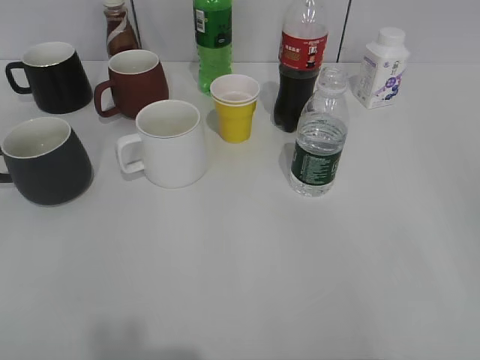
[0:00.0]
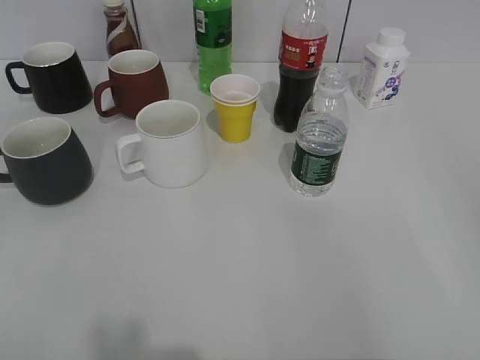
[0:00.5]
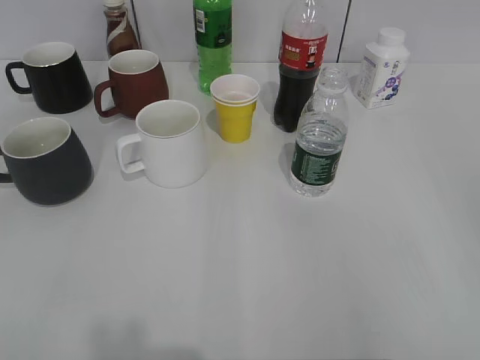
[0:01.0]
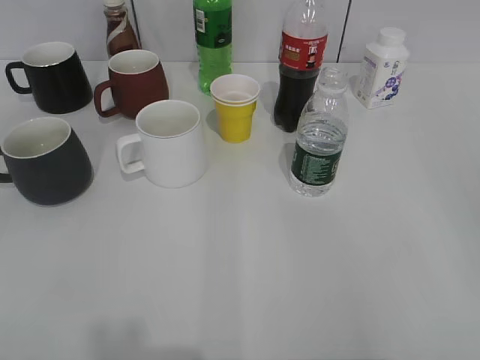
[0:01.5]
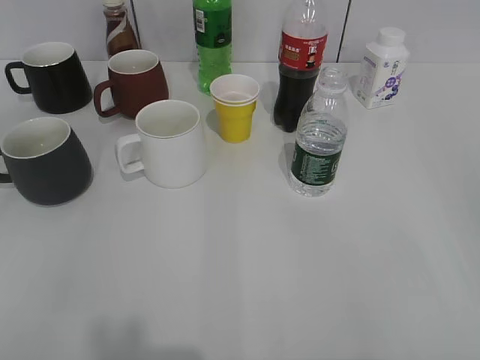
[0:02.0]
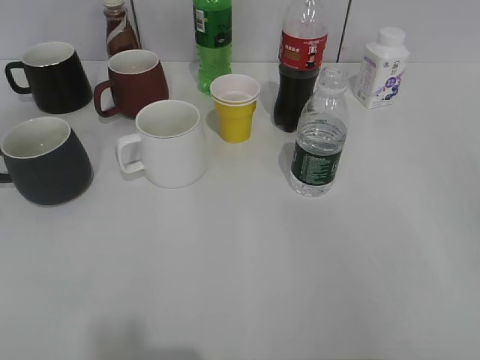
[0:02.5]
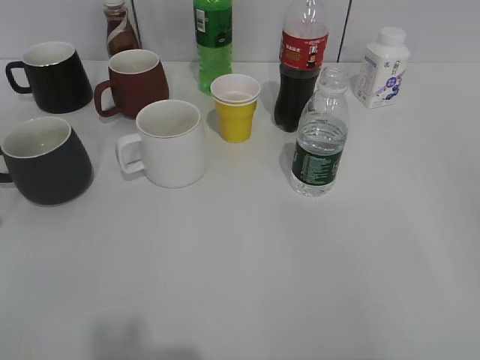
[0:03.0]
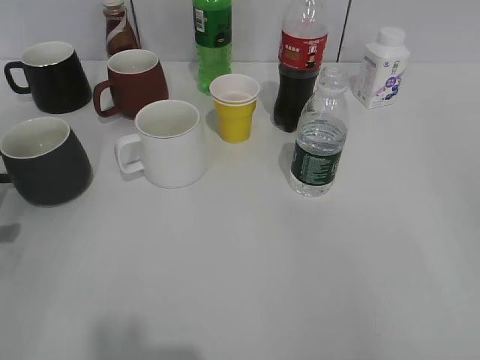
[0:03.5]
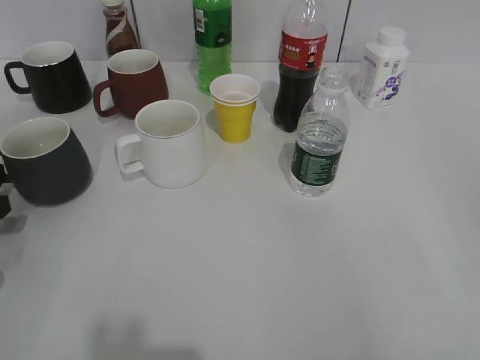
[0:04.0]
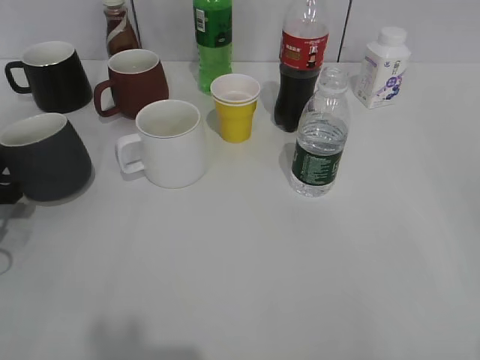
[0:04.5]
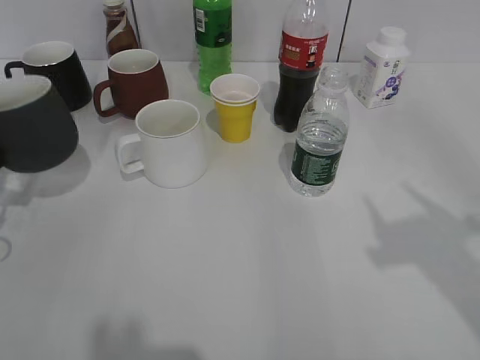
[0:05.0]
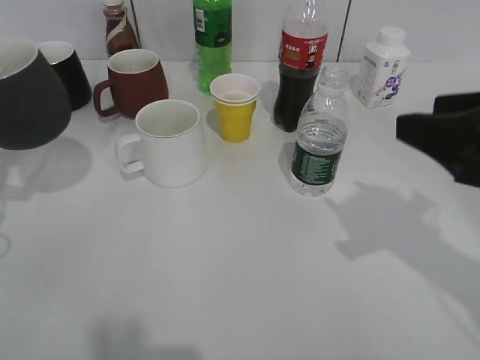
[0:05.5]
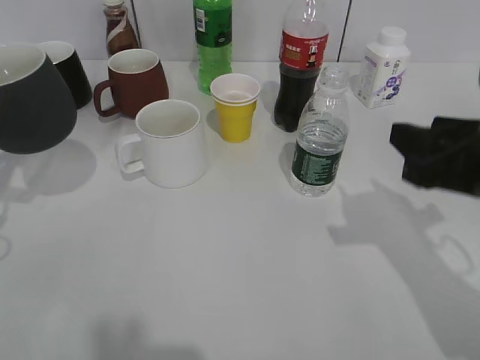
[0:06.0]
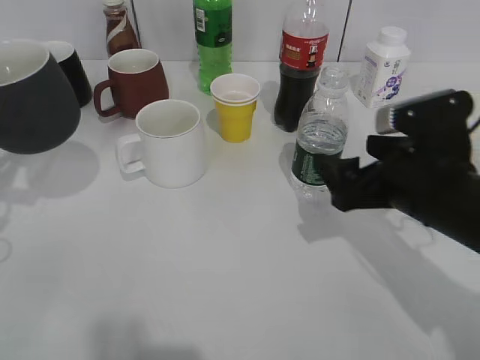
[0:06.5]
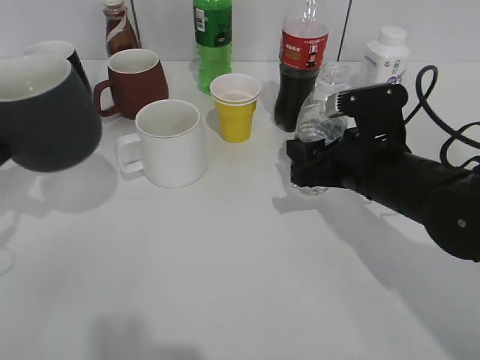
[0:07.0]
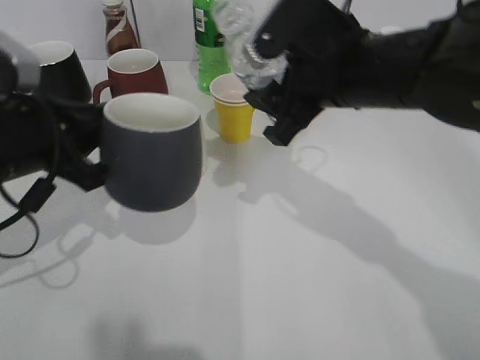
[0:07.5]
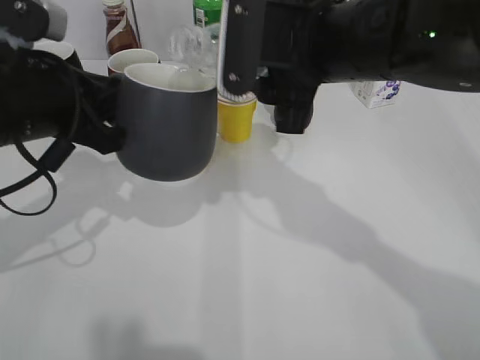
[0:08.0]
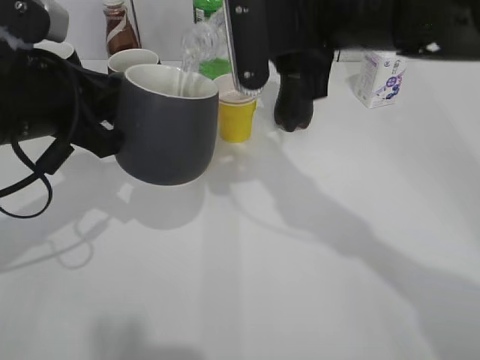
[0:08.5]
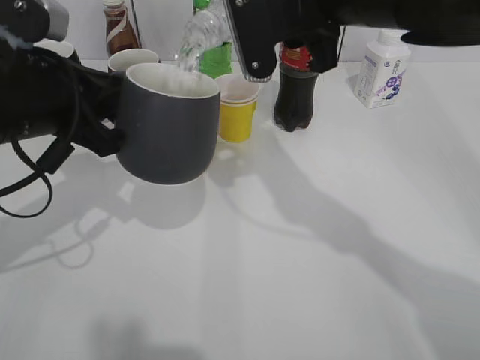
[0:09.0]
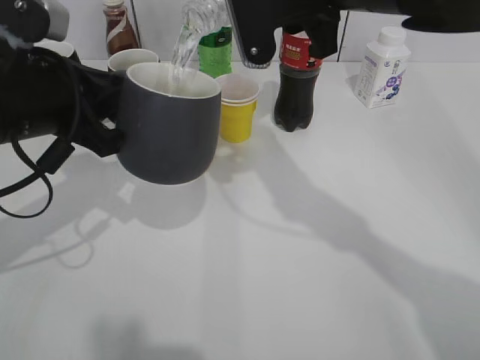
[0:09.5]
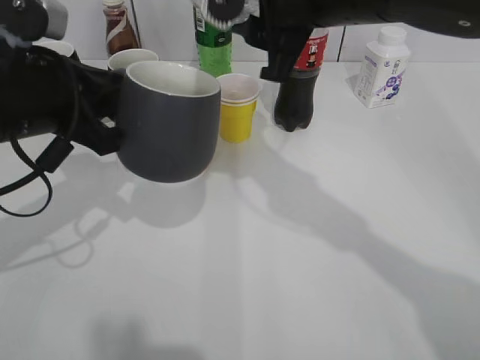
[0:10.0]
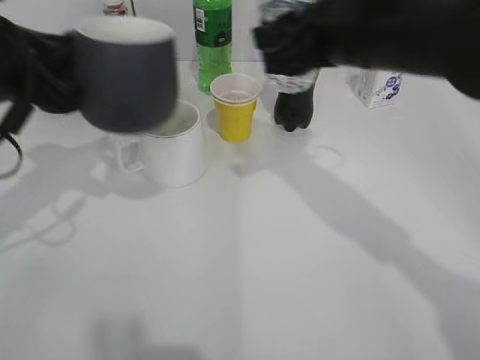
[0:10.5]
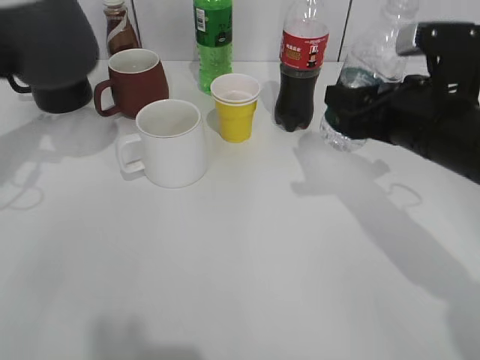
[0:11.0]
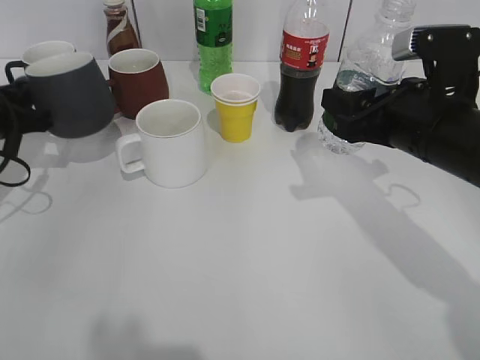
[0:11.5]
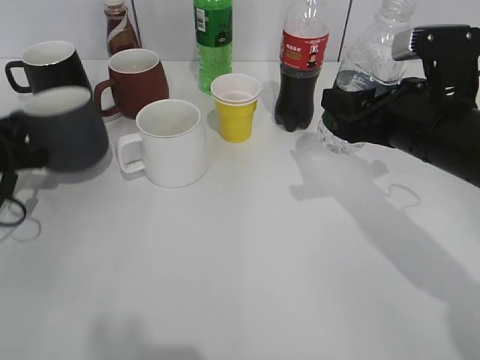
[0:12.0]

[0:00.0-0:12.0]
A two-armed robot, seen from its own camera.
Step, 0:02.0 to 0:04.5: Grasp the black cup with left gripper.
Step, 0:05.5 to 0:06.5: Grasp the bottle with water with right gripper.
Step, 0:07.0 to 0:10.0: Pour the water from bottle to cup with right gripper.
0:02.0 to 0:04.0: The left gripper travels downward and forward by roughly 30 cm.
0:04.0 to 0:06.0: The left gripper shifts about 10 cm upward, and closes; the right gripper heads forward and to the left, covering about 20 cm, and closes.
0:06.0 to 0:08.0: The right gripper is displaced to the left and forward by roughly 20 cm, and opens and closes again. The left gripper heads to the right and upward, covering about 15 cm.
0:10.0 to 0:12.0: The right gripper goes roughly 15 cm to the right and downward. Meanwhile the left gripper moves downward, to the left and forward, some 20 cm.

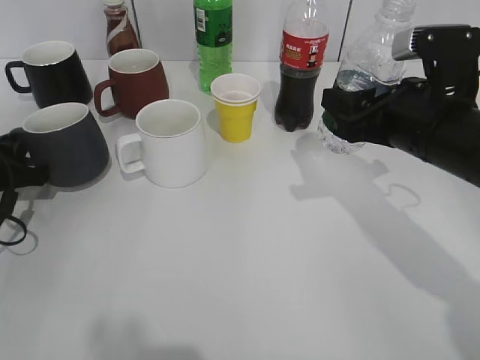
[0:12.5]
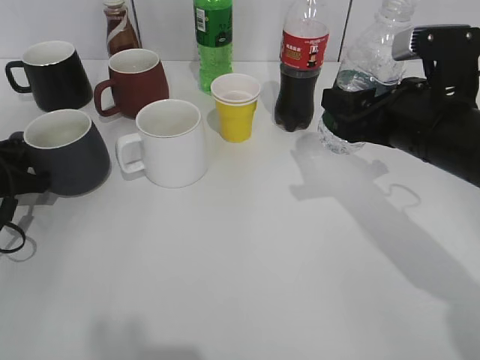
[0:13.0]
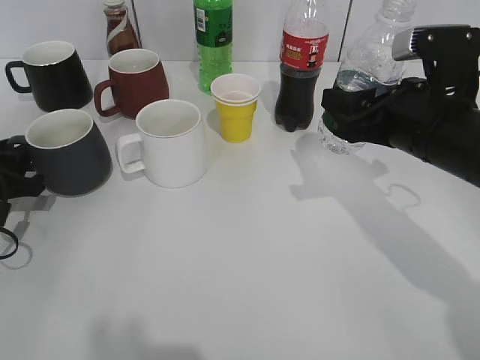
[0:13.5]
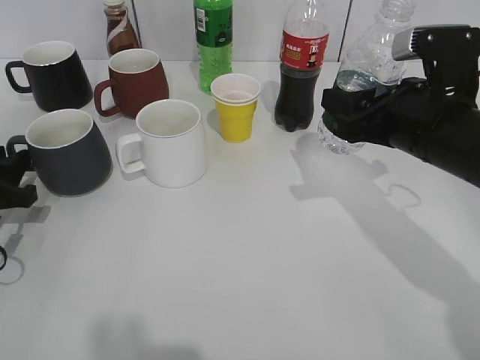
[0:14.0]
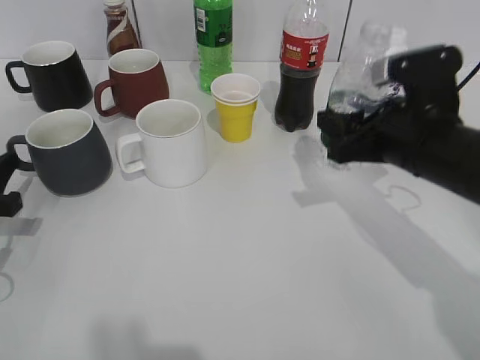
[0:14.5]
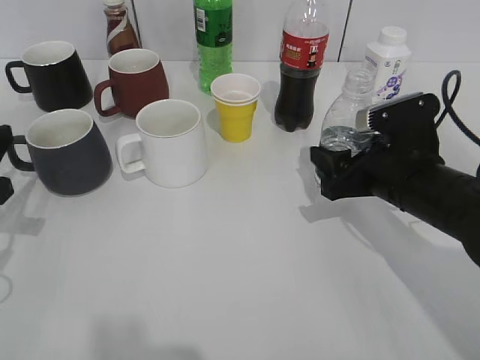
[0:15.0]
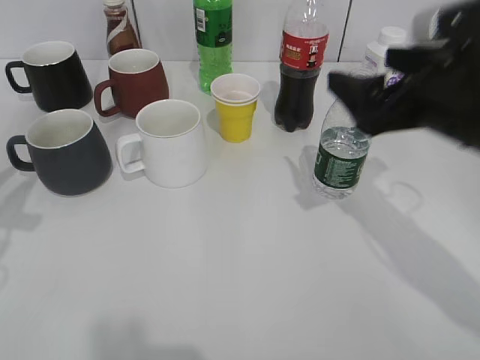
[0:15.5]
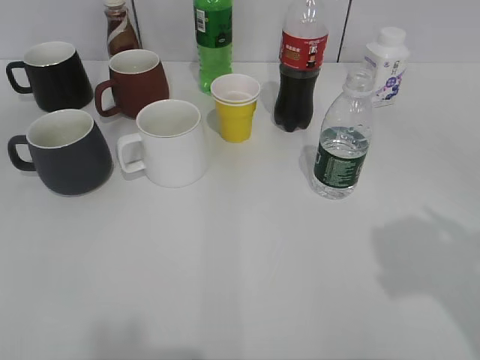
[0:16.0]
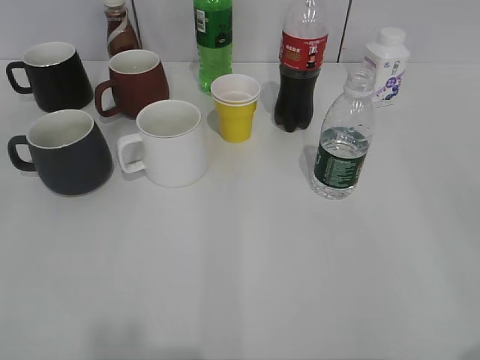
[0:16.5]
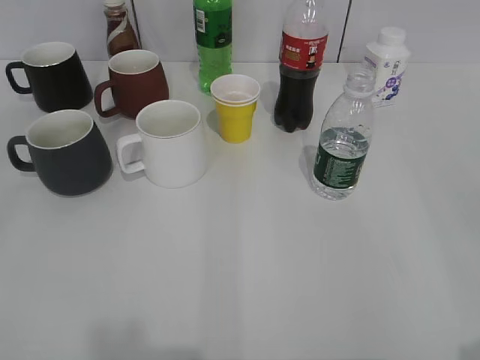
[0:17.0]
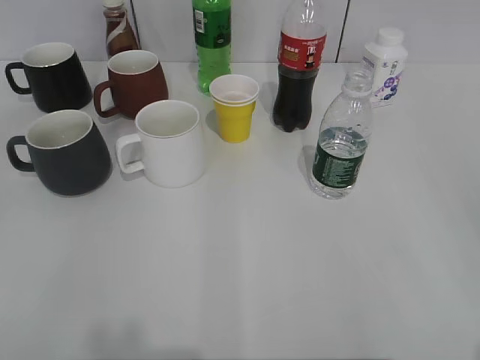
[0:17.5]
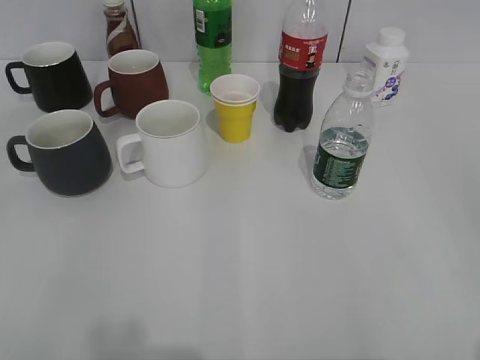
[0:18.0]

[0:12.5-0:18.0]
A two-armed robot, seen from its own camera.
Step, 0:14.5 to 0:15.0: Place the water bottle on the table with right gripper.
0:12.5 to 0:14.5: The left gripper travels backward by approximately 5 cm, and opens.
0:14.5 to 0:16.0: The left gripper heads upward and backward, covering some 25 cm, and opens; the right gripper travels backward, upward and to the right by approximately 25 cm, and opens its fingers.
0:16.0 to 0:18.0: The left gripper is displaced backward and downward by about 10 cm.

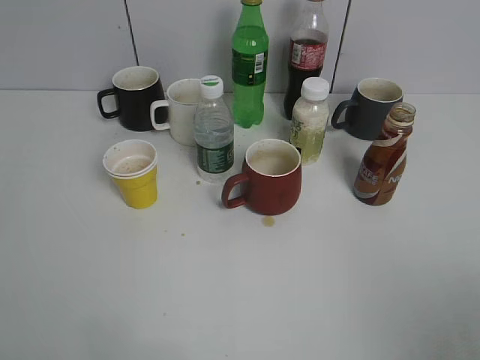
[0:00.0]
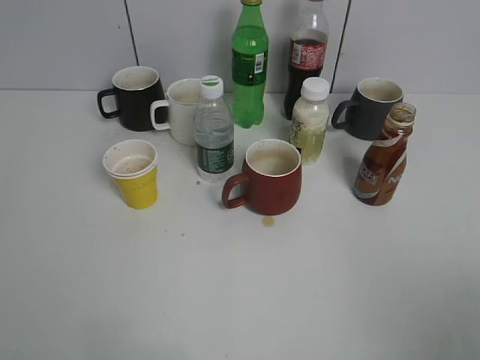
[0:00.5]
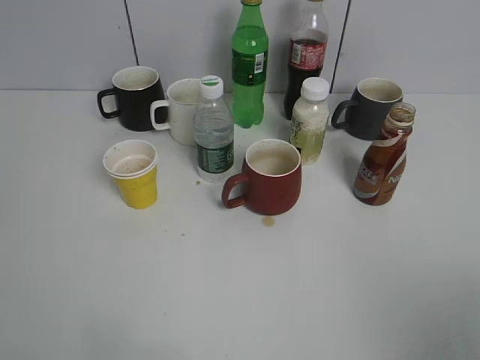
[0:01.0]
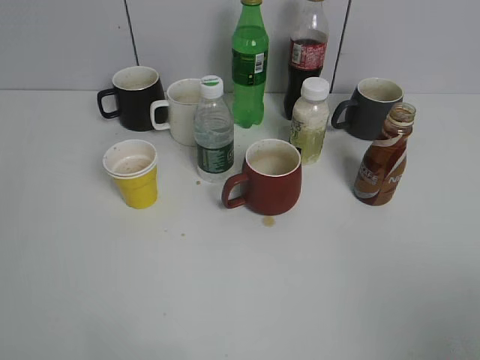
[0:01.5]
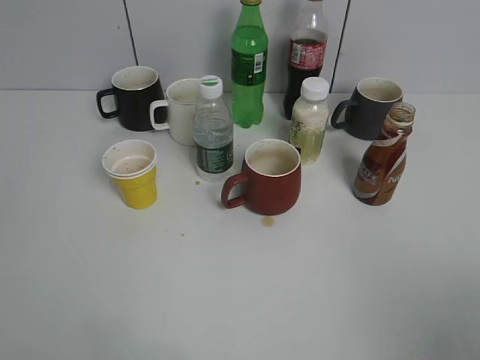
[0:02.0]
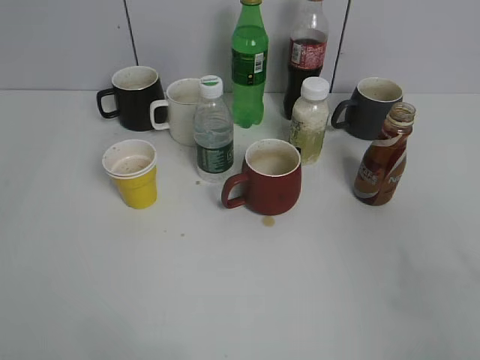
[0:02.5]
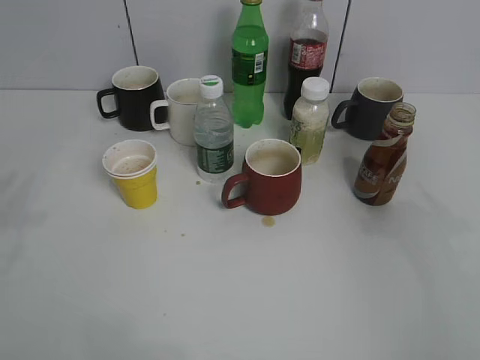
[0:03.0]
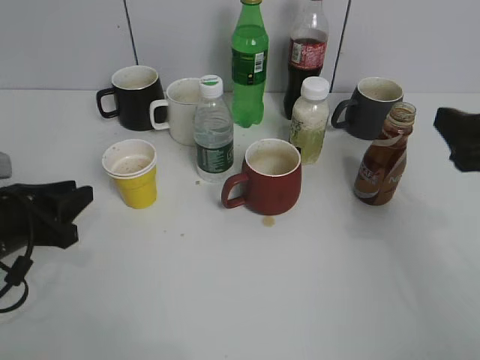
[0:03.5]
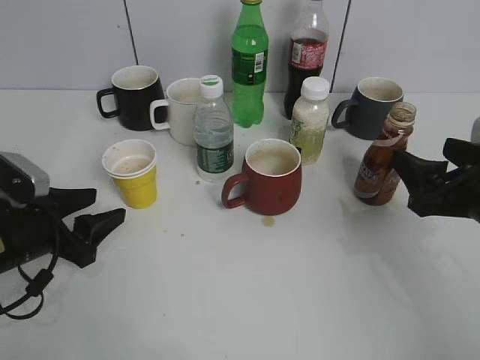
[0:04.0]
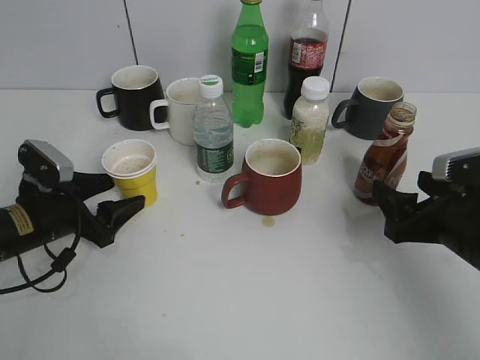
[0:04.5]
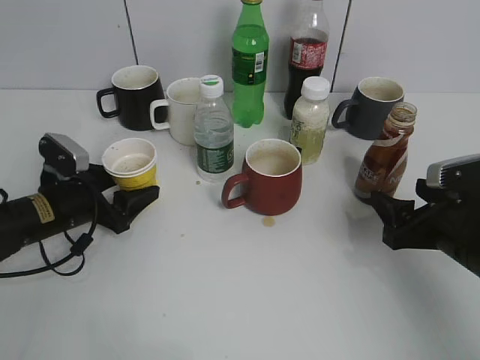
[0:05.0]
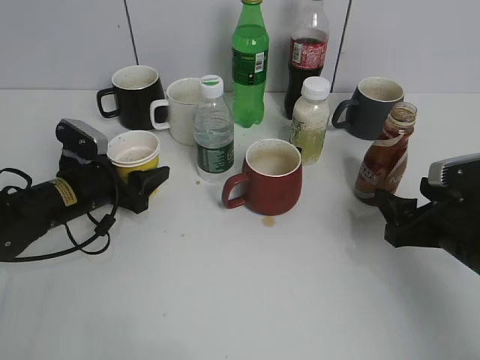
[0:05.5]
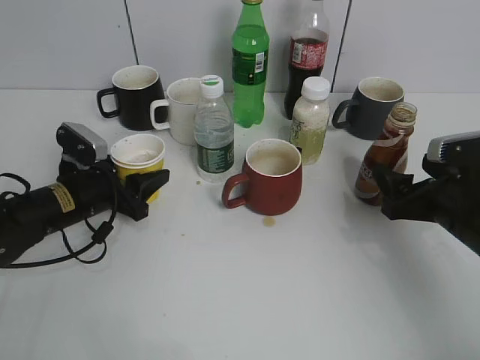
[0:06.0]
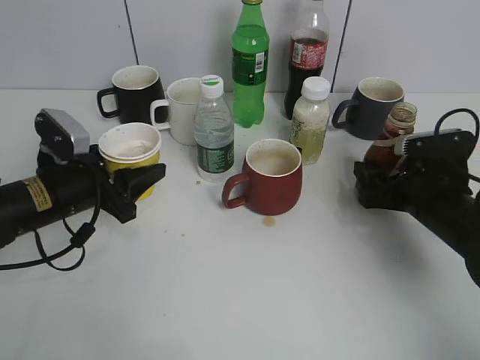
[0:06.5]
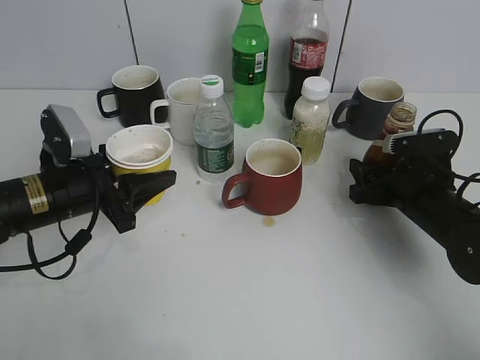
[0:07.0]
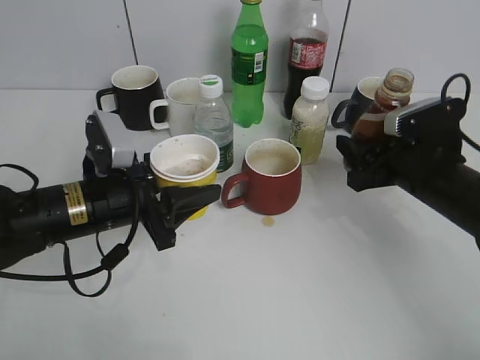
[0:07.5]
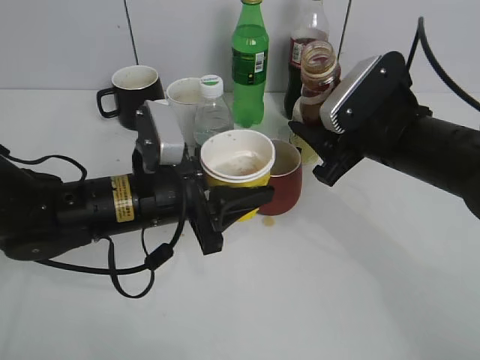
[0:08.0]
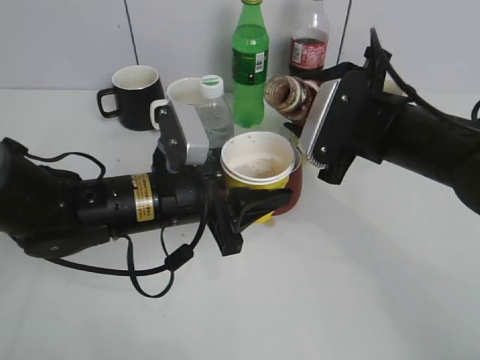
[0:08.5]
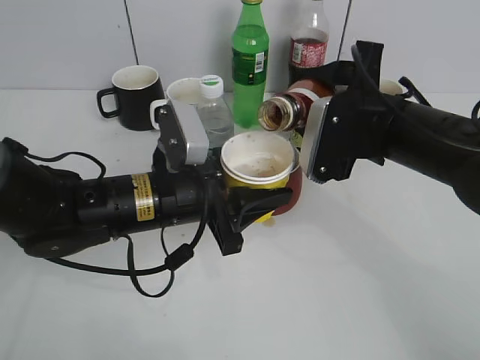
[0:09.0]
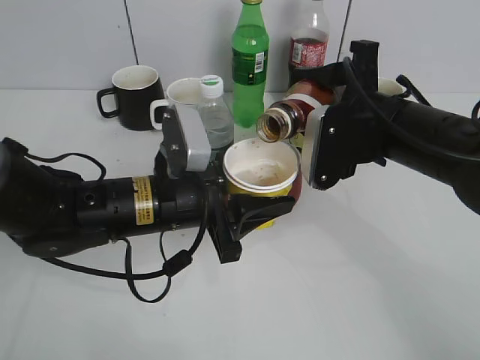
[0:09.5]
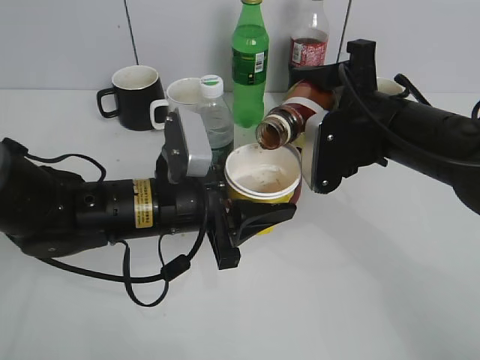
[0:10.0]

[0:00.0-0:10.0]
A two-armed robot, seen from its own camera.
Step, 0:02.0 to 0:05.5: Grasp the yellow paper cup with left gripper.
Step, 0:06.0 to 0:07.0: Grasp the bottle with coffee with right gripper.
0:02.0 to 0:04.0: Both grippers travel together forward and downward, roughly 30 cm. The left gripper opens its fingers.
0:04.0 to 0:06.0: The right gripper moves downward, some 5 cm, and opens its fingers. Meanwhile the left gripper is displaced forward by some 10 cm, and closes.
0:06.0 to 0:08.0: The right gripper goes about 10 cm to the left and upward, and closes its fingers. Meanwhile the left gripper goes approximately 15 cm to the right, upward and backward.
